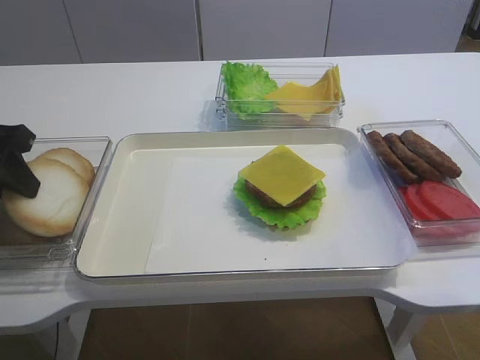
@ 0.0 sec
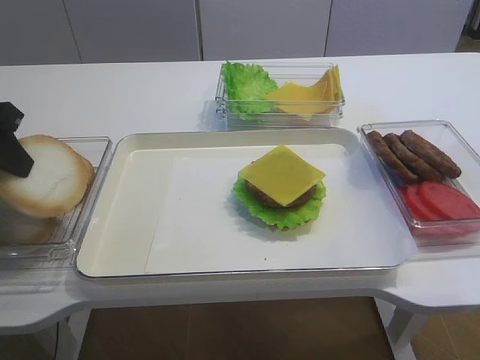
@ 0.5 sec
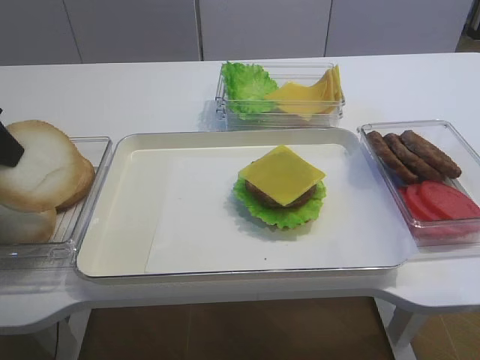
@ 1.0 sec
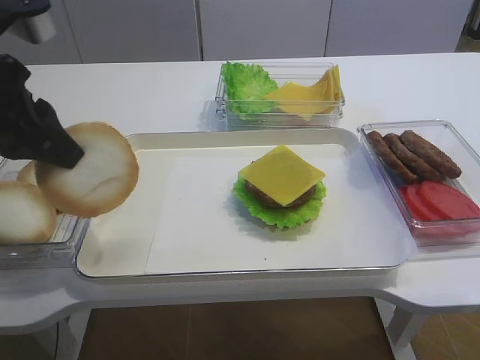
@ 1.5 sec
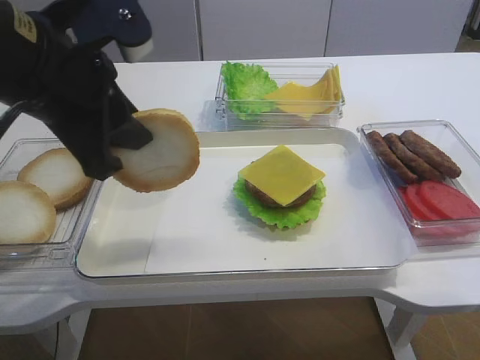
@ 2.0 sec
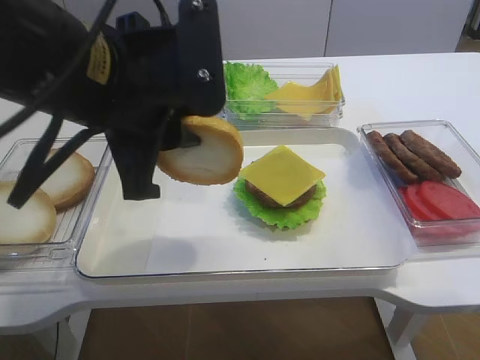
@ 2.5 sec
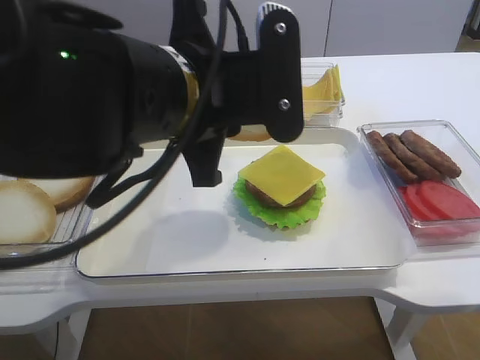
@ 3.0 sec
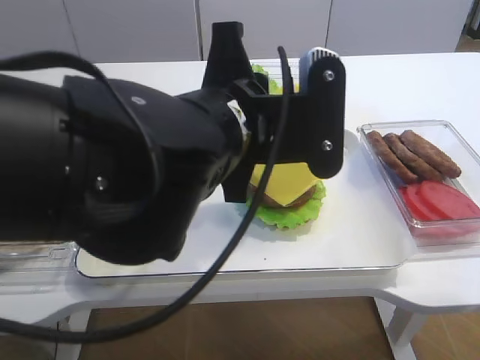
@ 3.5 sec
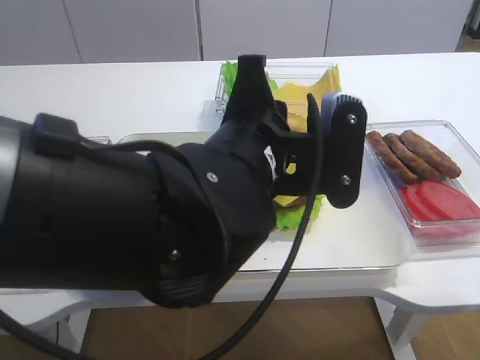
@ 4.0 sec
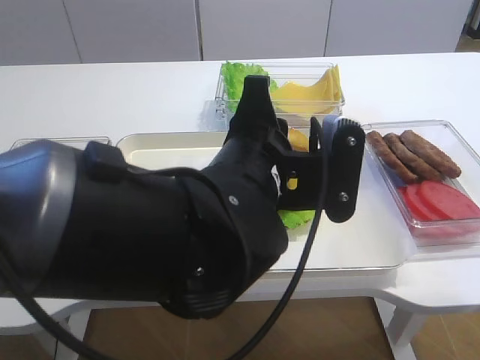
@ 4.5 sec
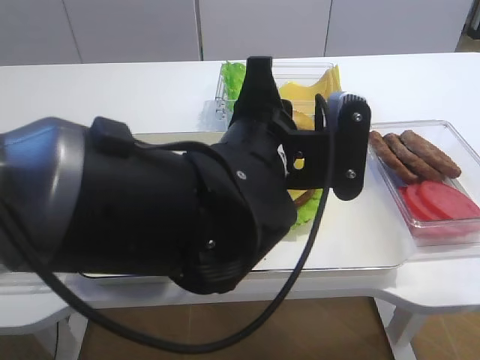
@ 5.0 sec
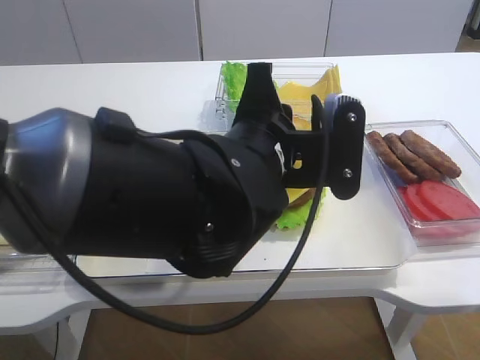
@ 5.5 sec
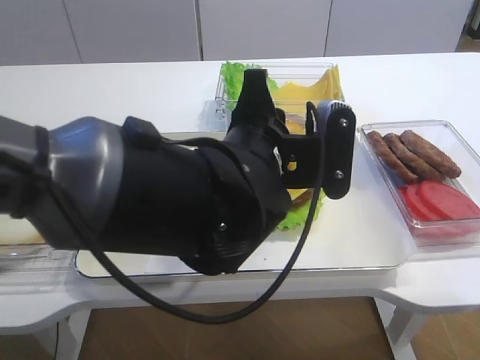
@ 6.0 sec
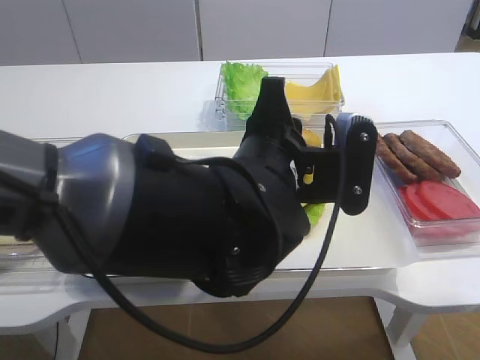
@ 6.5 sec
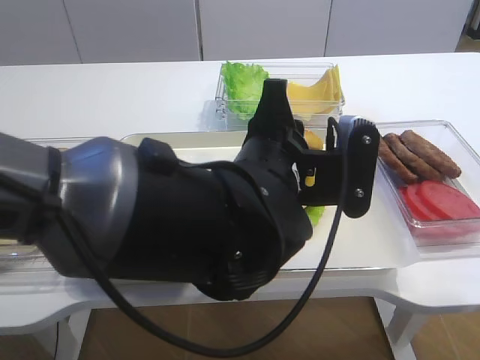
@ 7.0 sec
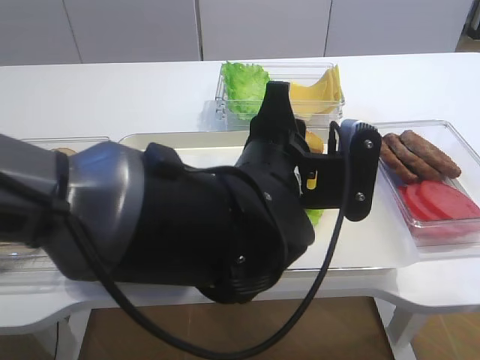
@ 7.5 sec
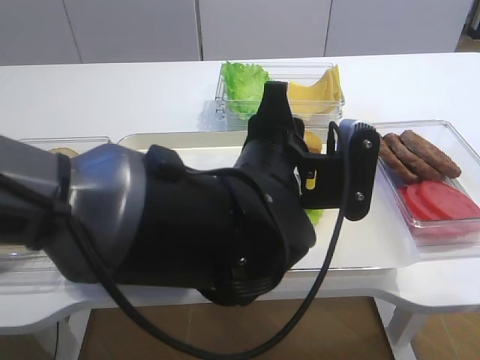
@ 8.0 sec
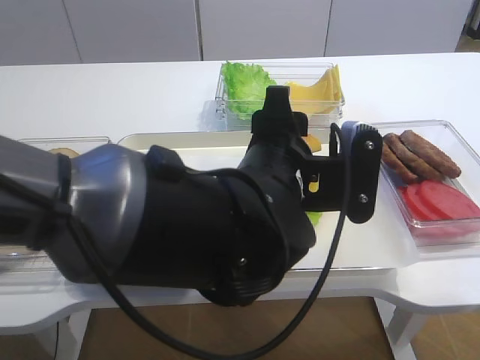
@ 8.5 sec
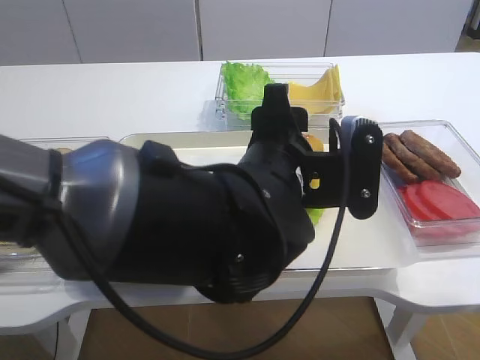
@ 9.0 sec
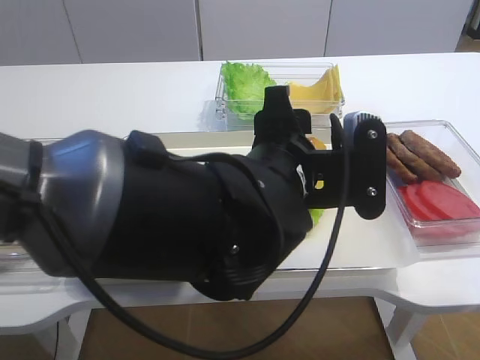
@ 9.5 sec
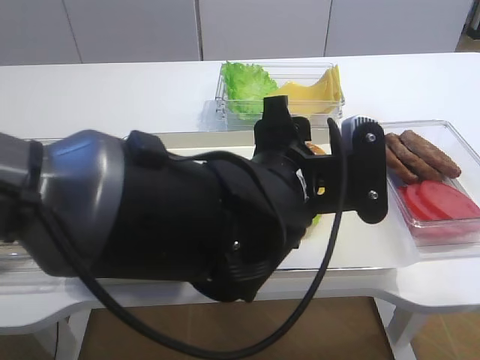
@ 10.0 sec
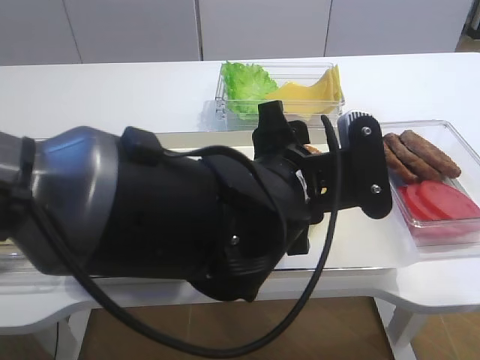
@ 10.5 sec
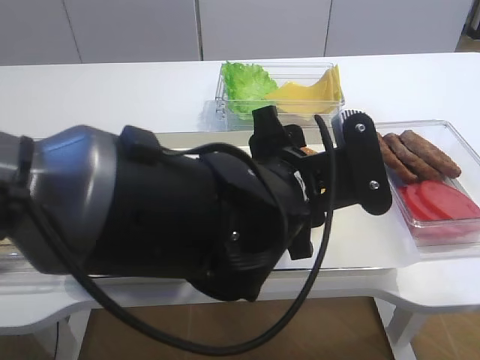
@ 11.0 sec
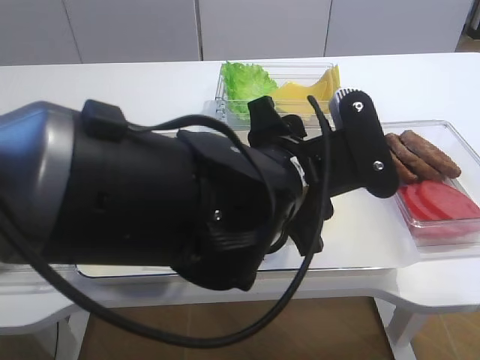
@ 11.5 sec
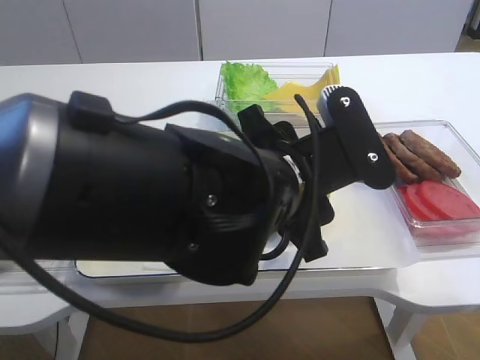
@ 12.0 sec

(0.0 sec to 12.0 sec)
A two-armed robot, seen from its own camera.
Step, 1.5 sec - 12.0 sec: Place the hamburger lid on the cheese slice with the left gripper.
0.0 sec - 2.0 sec: The left gripper is displaced to the right and upward by approximately 15 cm.
2.0 sec - 4.0 sec: The left gripper goes approximately 15 cm to the right.
4.0 sec - 6.0 sec: The grippers move only a little.
8.0 sec - 10.0 sec: The left gripper opens its fingers.

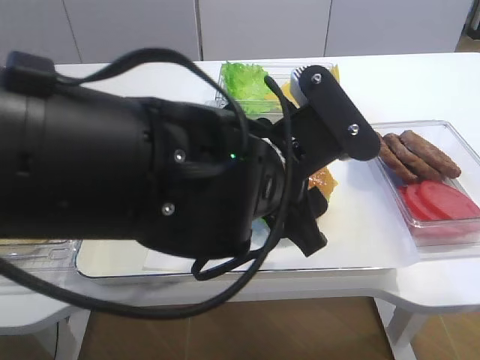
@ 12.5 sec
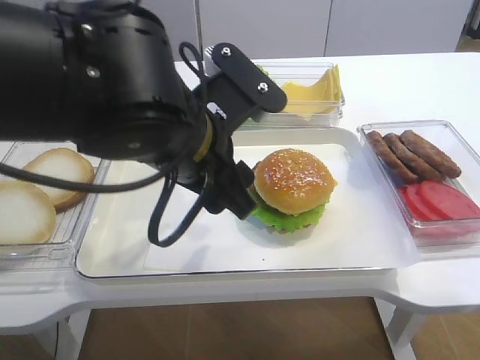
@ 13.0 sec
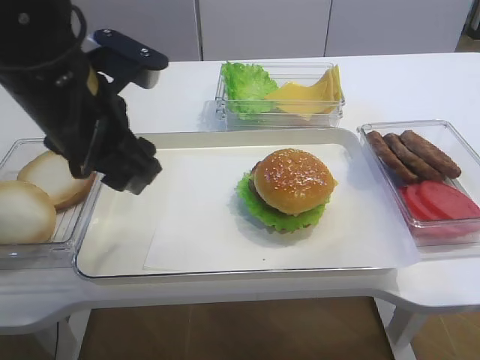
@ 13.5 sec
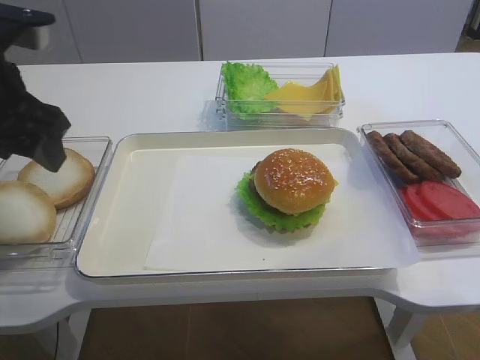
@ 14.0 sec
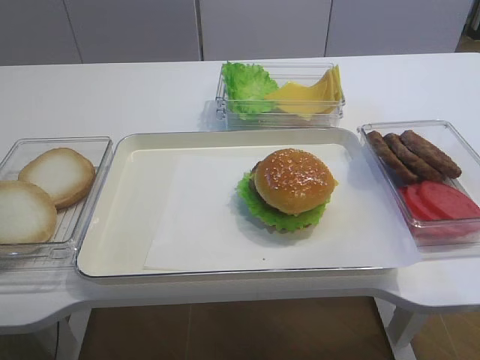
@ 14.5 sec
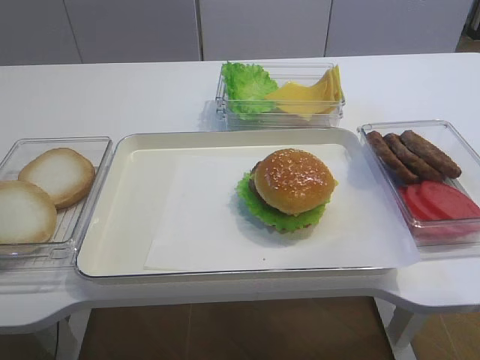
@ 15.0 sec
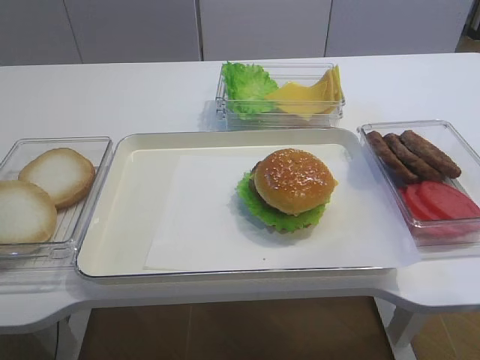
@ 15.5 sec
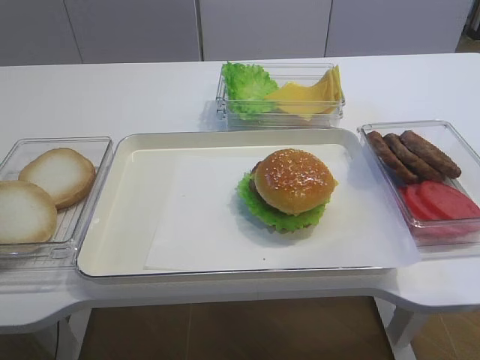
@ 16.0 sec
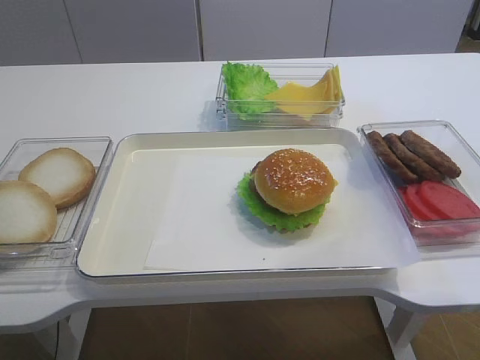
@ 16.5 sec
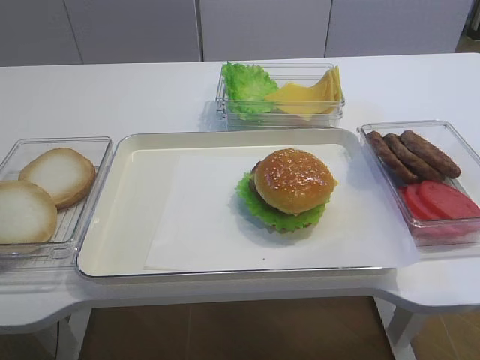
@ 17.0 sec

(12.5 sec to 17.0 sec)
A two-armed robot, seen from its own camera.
12.5 sec - 14.5 sec: The left gripper moves to the left, some 30 cm.

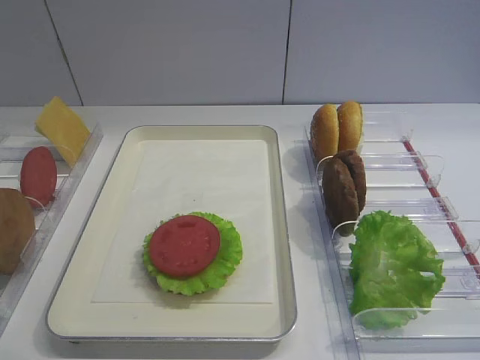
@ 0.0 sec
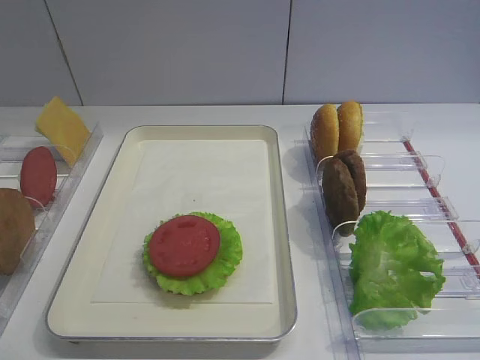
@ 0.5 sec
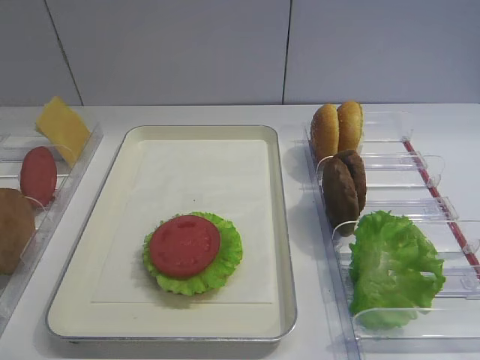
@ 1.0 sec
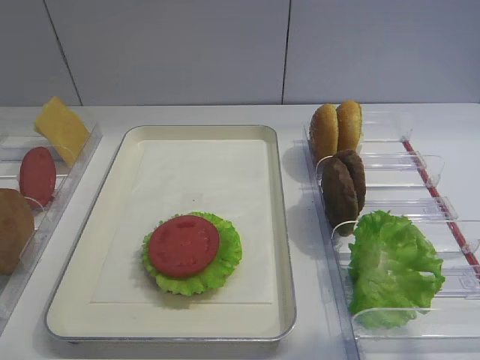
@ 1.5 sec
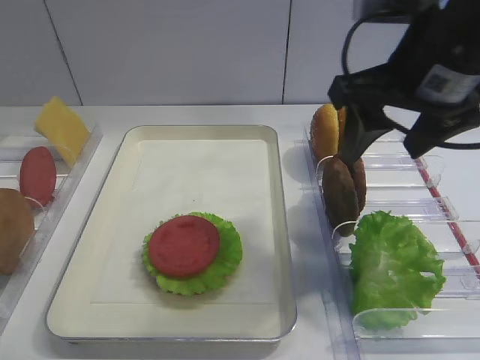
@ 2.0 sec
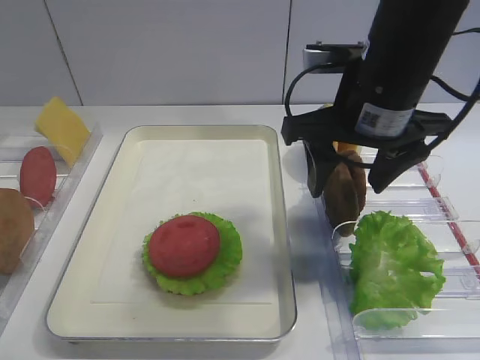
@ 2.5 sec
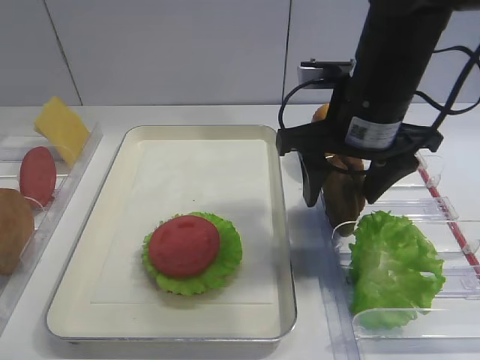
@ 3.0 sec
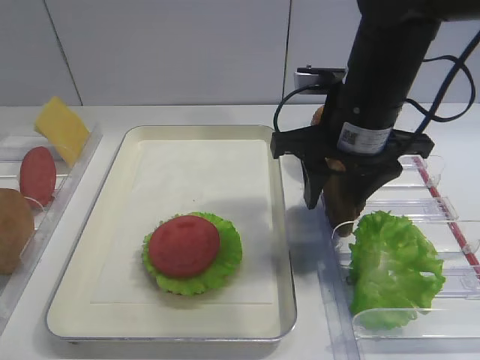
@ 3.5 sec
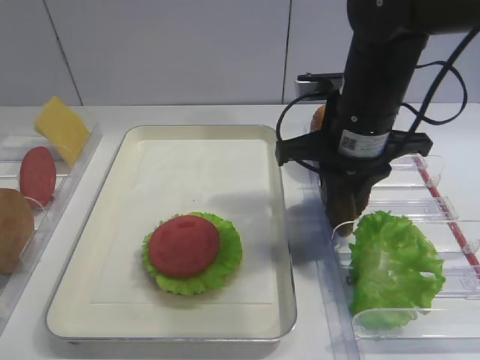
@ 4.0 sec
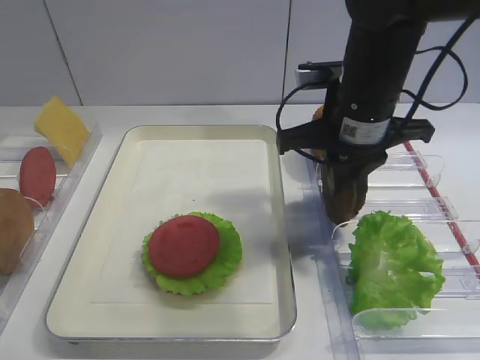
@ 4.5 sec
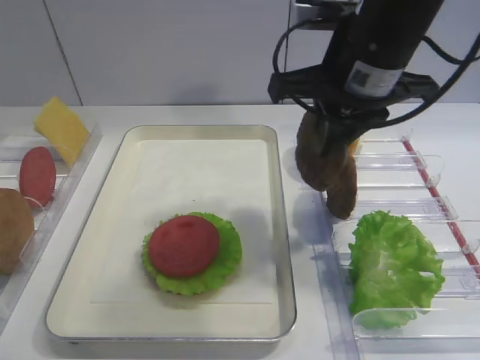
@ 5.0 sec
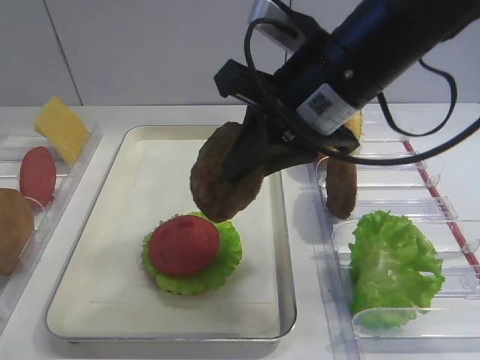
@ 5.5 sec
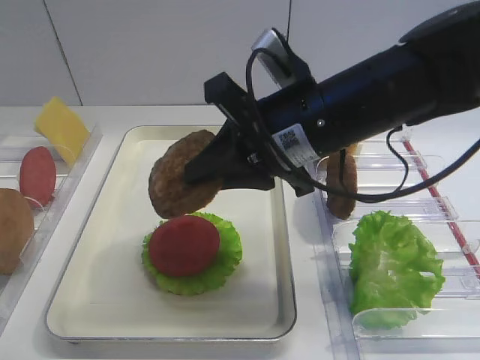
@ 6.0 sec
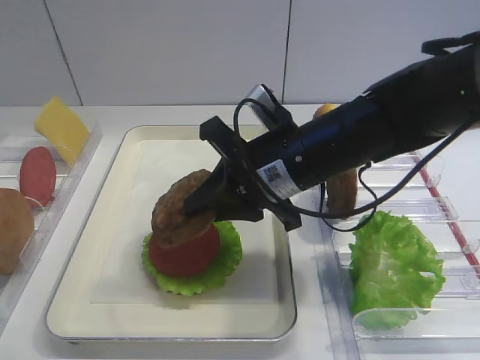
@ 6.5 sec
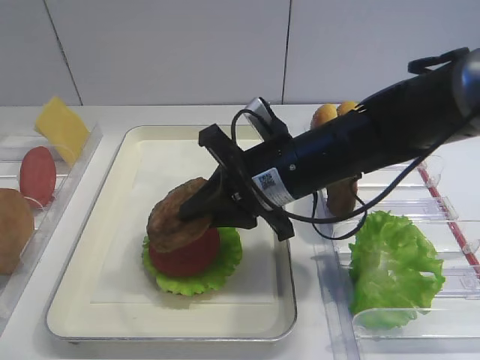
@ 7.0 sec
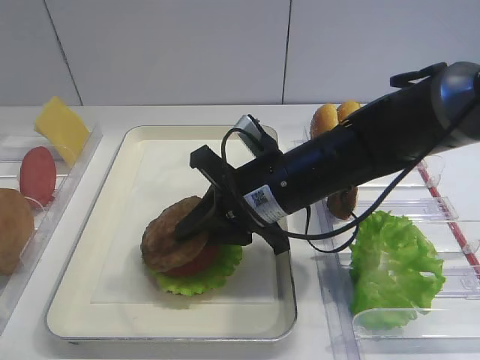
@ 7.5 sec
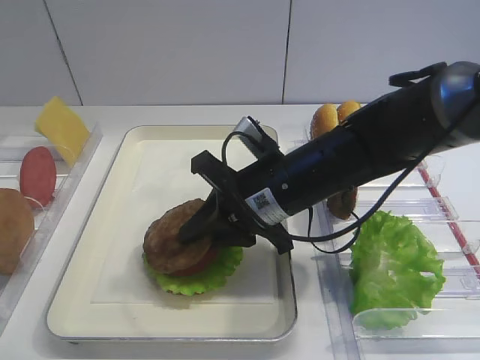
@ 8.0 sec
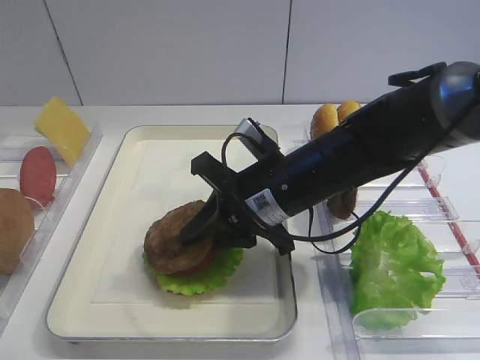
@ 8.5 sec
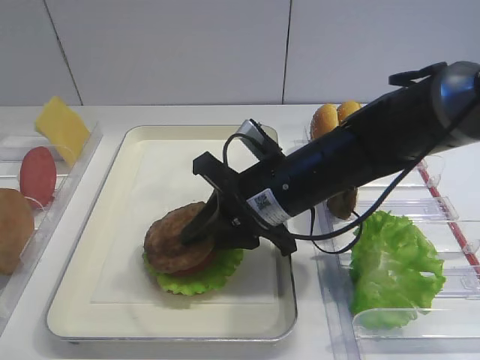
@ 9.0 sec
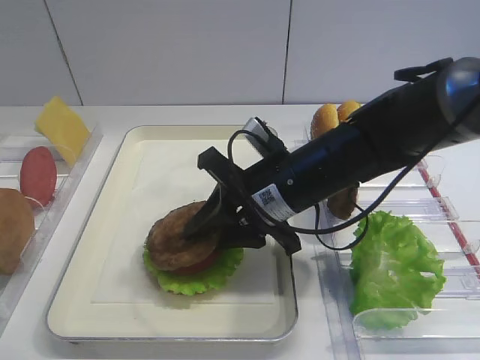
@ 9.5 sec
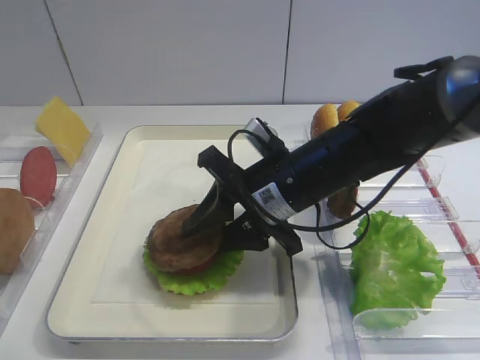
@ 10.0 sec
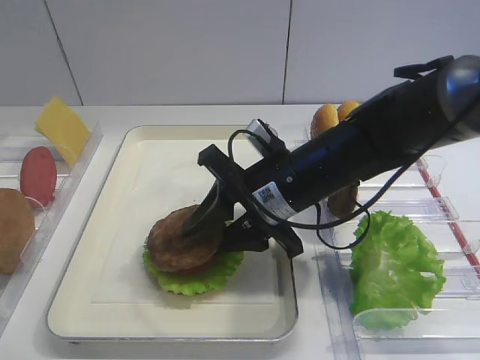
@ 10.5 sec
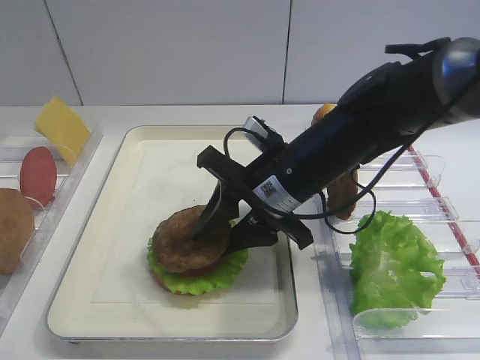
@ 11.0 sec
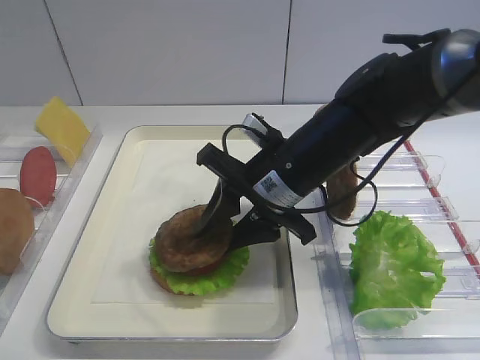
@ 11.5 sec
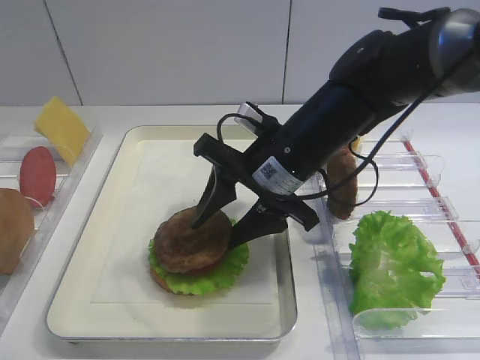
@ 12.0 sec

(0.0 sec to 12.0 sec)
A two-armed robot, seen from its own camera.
Step, 0.0 sec - 4.5 sec: Pick up the cutlet with the right gripper.
2.0 sec - 4.0 sec: The right gripper heads downward, covering some 10 cm, and closes its fingers.
4.0 sec - 6.0 sec: The right gripper ends up approximately 5 cm from where it was.
6.0 sec - 8.0 sec: The right gripper heads downward, covering approximately 10 cm.
8.0 sec - 10.0 sec: The right gripper opens.
10.0 sec - 12.0 sec: The grippers make only small movements.
